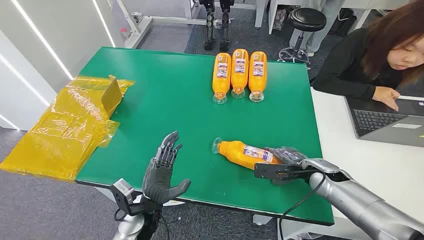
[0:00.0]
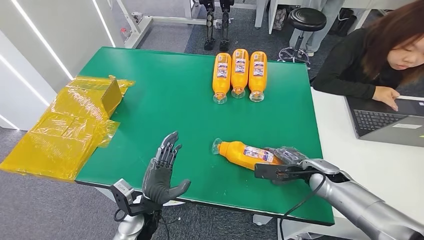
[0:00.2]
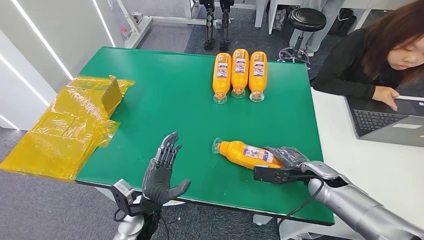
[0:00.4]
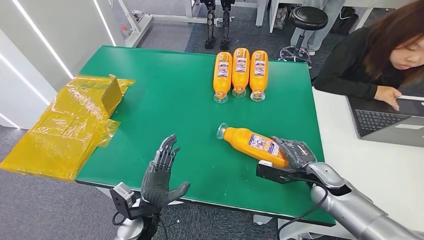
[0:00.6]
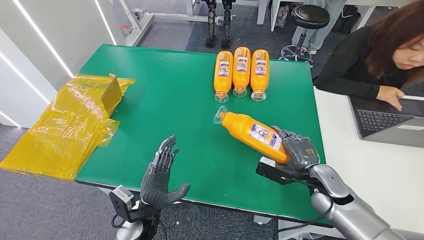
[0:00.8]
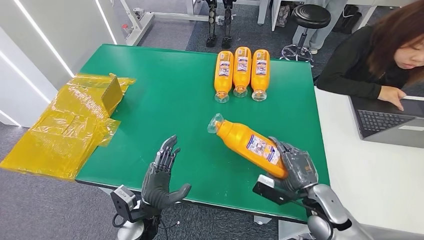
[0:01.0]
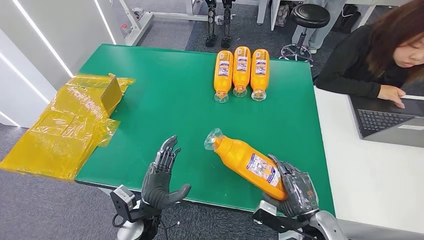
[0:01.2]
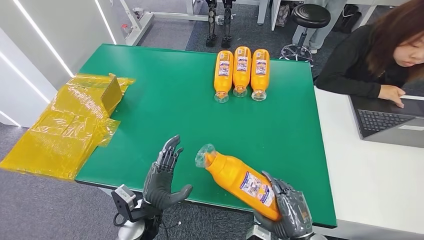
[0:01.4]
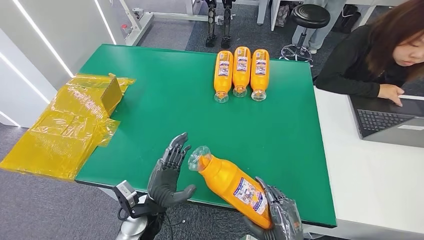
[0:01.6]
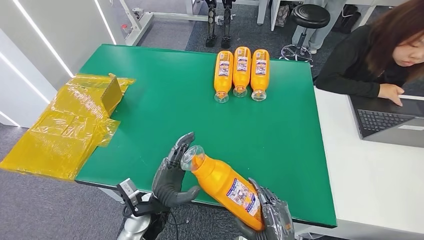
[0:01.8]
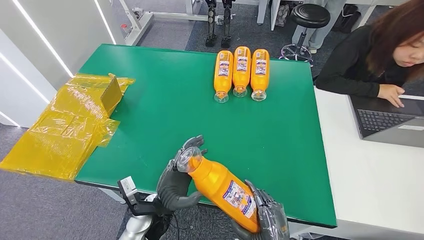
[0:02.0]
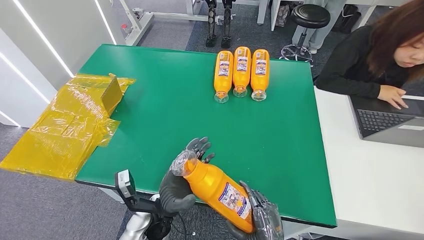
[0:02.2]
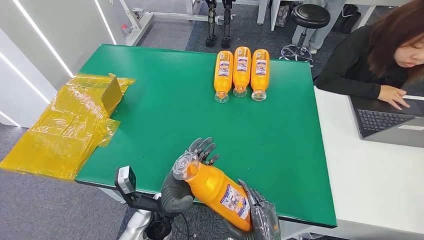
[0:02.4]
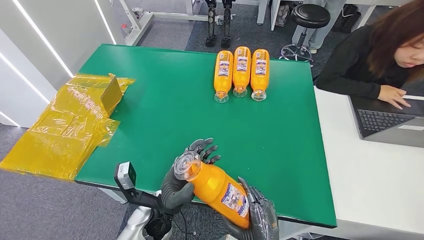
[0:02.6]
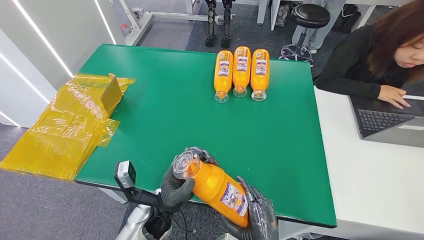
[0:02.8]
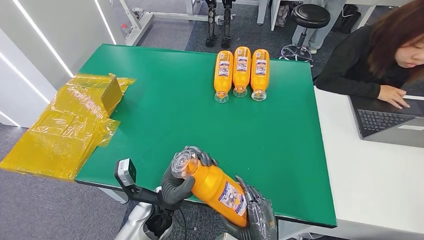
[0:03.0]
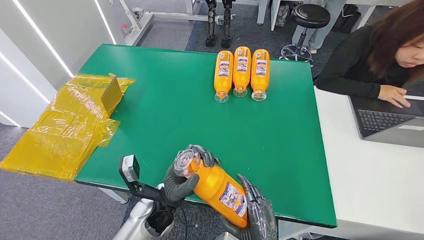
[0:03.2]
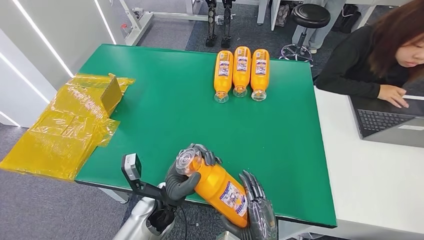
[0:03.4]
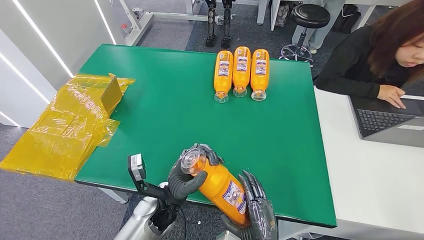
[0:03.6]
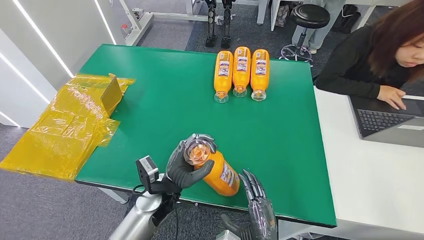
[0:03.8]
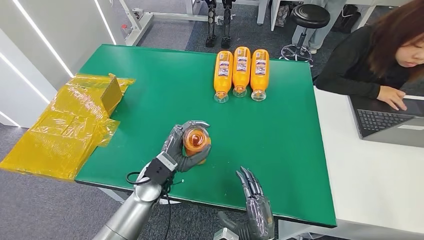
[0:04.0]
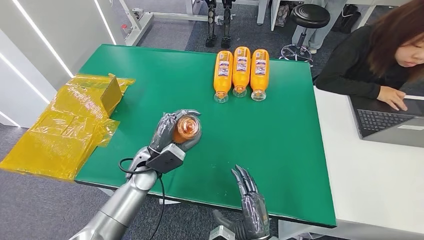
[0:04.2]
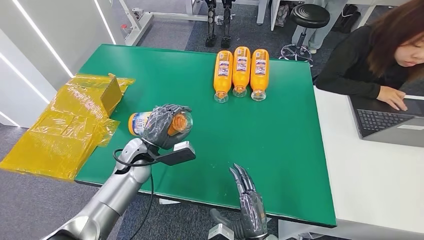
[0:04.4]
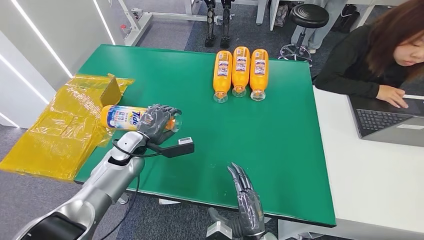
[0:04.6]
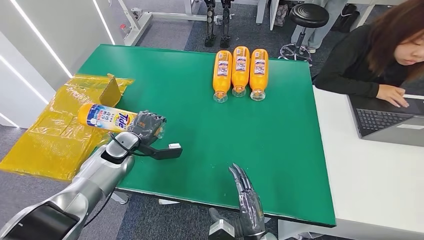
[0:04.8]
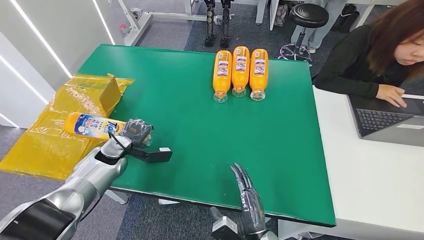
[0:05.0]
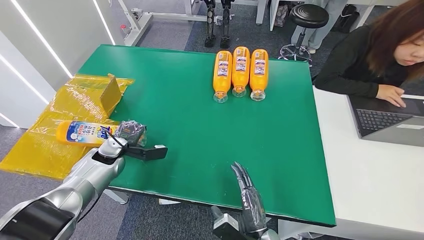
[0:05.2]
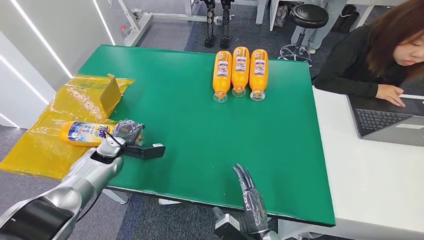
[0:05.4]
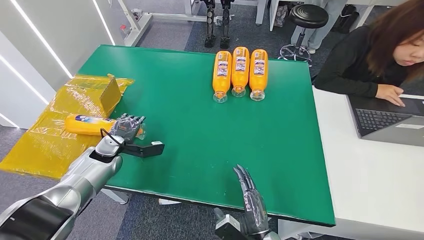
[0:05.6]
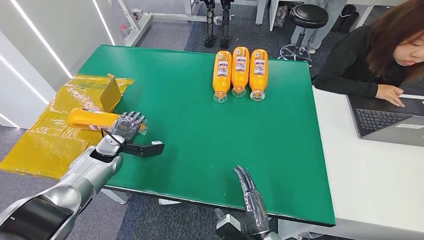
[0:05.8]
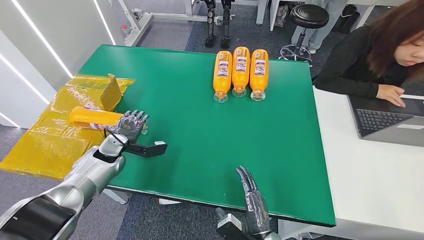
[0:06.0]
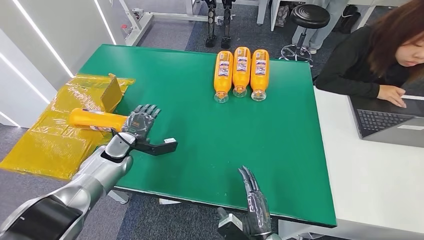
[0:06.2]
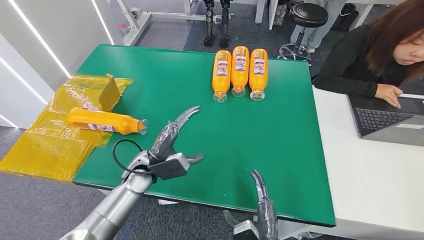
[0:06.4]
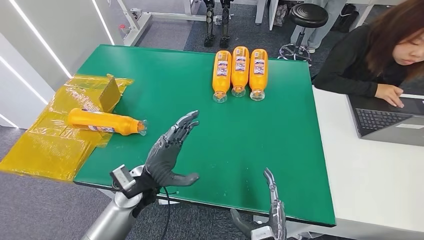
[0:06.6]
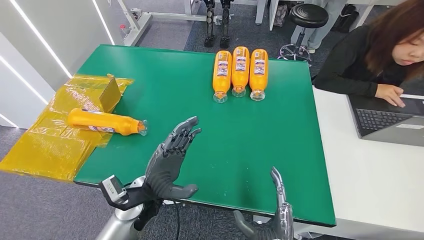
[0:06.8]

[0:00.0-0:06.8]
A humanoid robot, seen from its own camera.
Step, 0:00.0 to 0:02.2: Pick up the bottle from the table.
Step, 0:02.4 to 0:06.8: Turn the bottle to the front side.
0:01.4 to 0:02.8: The right hand heads to the left, covering about 10 cm. Meanwhile the left hand moves some 5 cm.
0:02.8 to 0:04.0: The left hand is displaced forward by about 10 cm.
0:04.0 to 0:05.4: The left hand travels to the left by roughly 20 cm.
0:05.4 to 0:06.8: The left hand heads to the right and backward, covering roughly 25 cm; the right hand changes place by some 5 cm.

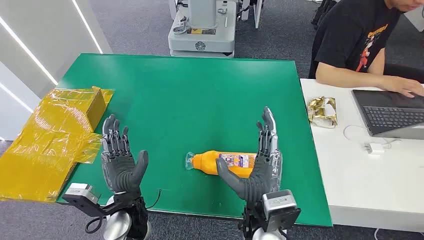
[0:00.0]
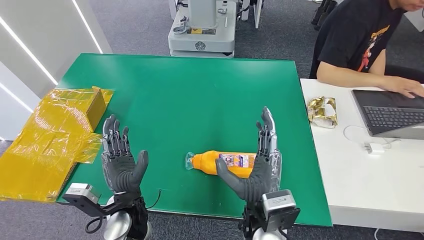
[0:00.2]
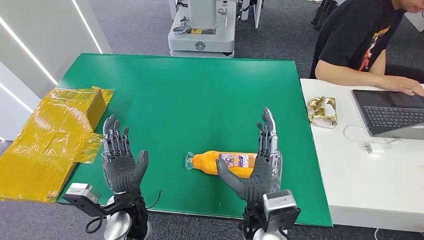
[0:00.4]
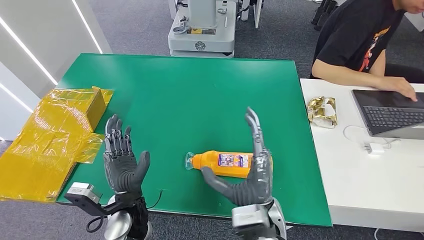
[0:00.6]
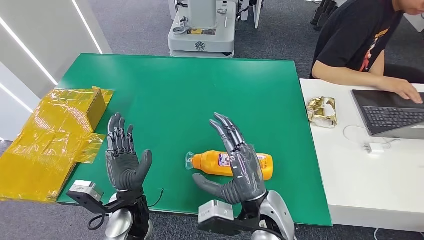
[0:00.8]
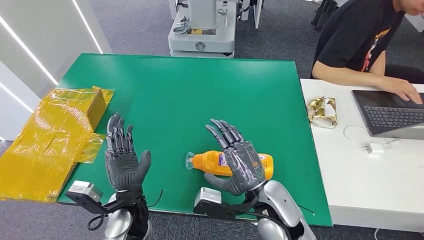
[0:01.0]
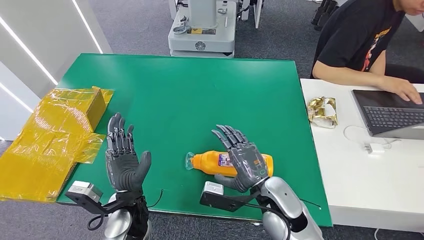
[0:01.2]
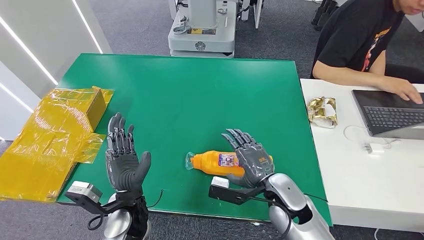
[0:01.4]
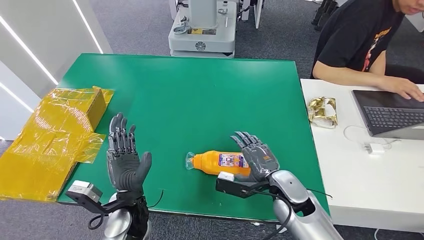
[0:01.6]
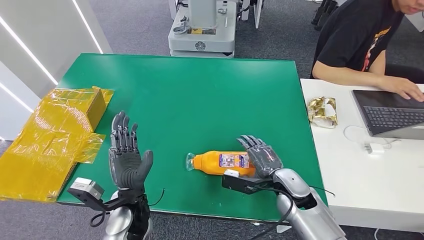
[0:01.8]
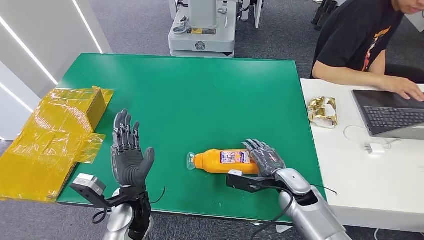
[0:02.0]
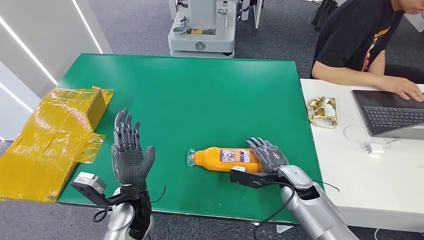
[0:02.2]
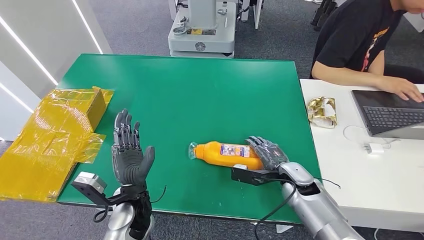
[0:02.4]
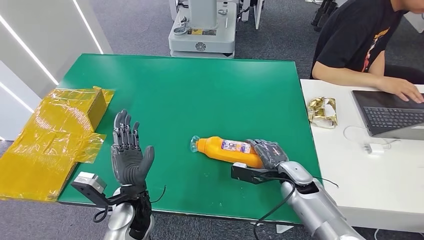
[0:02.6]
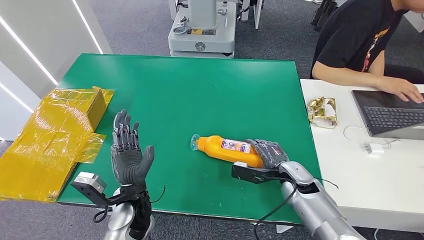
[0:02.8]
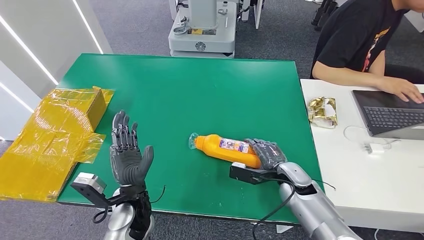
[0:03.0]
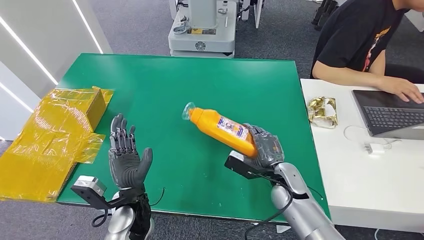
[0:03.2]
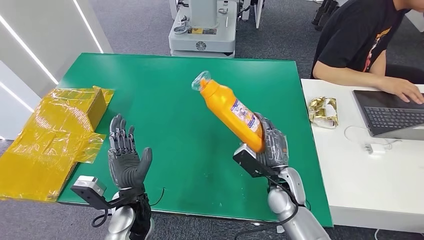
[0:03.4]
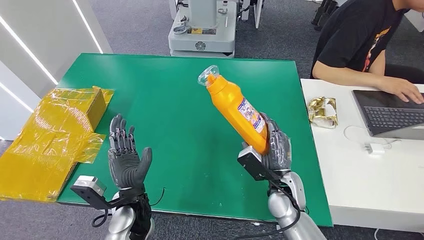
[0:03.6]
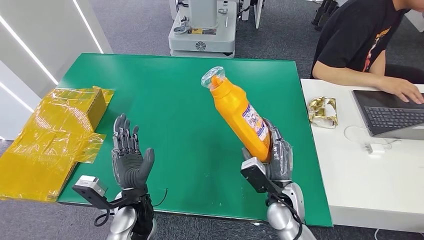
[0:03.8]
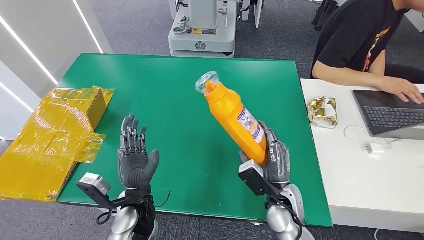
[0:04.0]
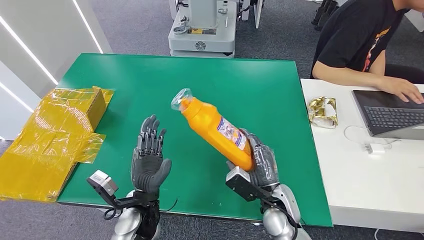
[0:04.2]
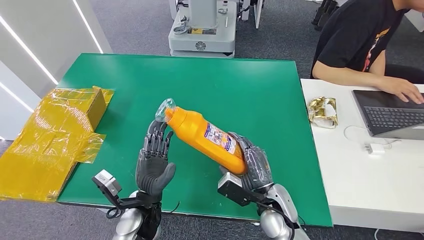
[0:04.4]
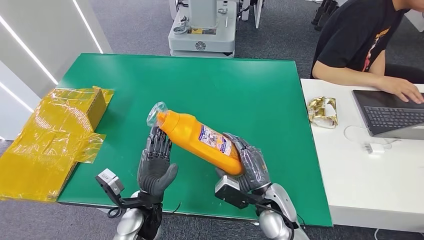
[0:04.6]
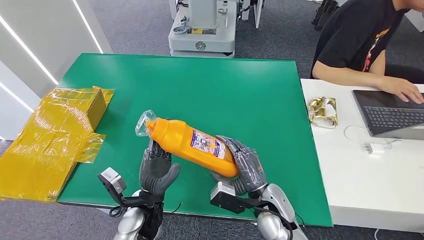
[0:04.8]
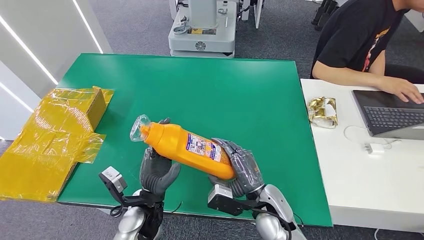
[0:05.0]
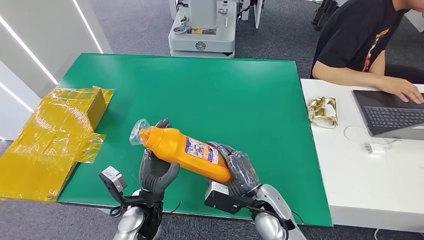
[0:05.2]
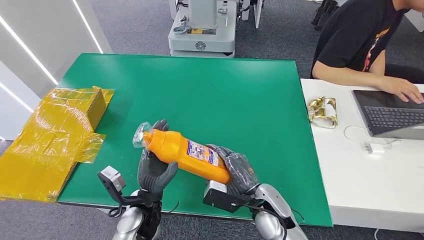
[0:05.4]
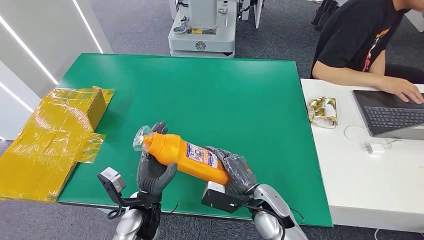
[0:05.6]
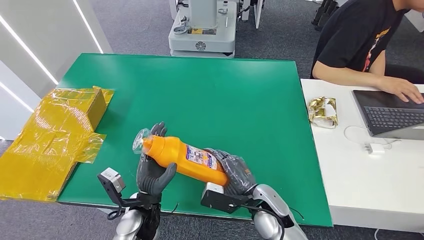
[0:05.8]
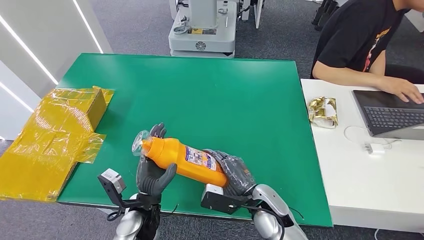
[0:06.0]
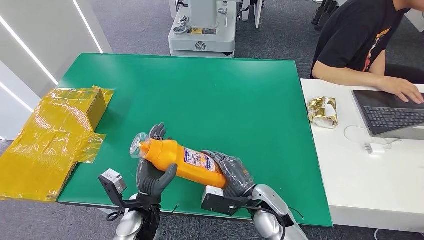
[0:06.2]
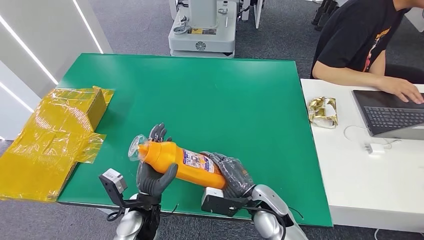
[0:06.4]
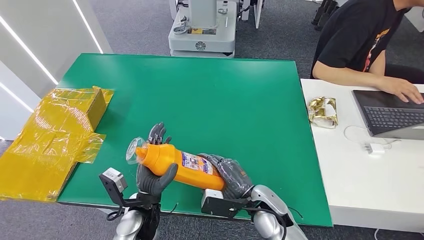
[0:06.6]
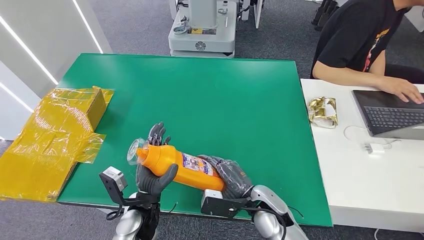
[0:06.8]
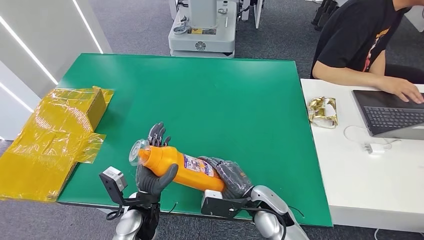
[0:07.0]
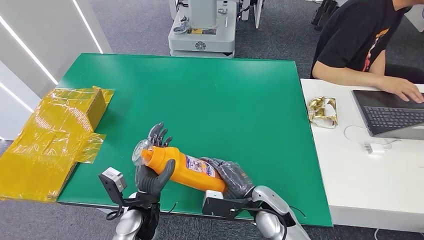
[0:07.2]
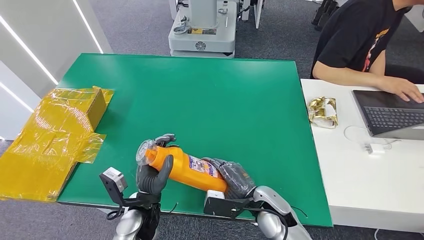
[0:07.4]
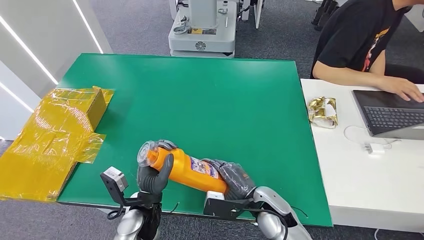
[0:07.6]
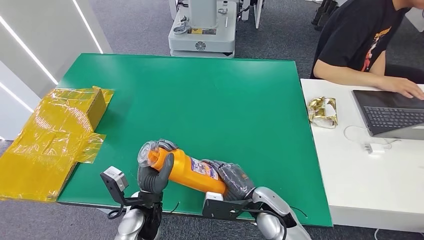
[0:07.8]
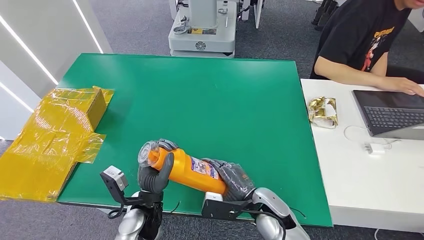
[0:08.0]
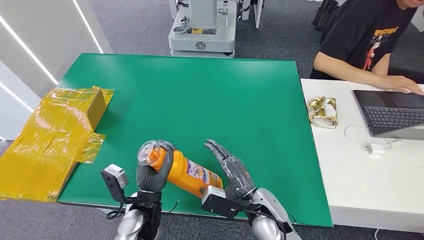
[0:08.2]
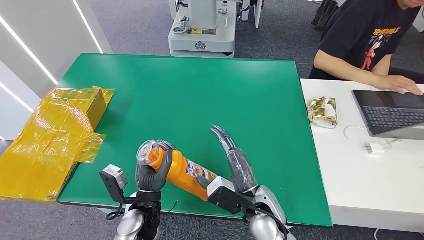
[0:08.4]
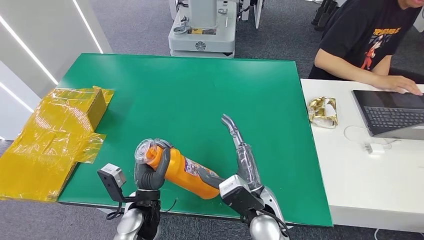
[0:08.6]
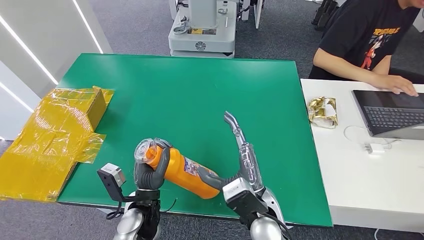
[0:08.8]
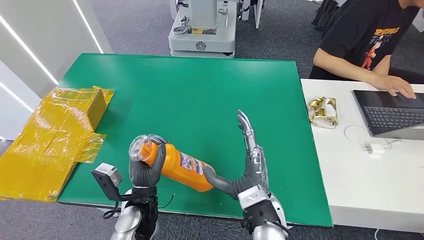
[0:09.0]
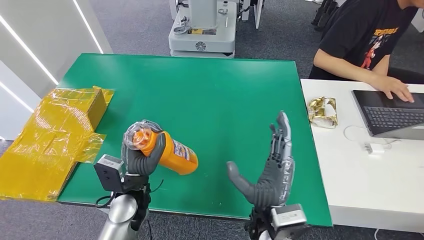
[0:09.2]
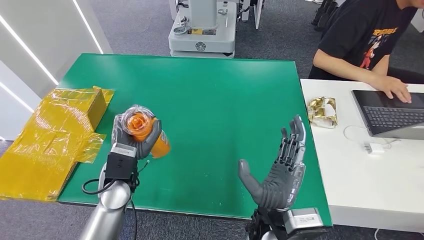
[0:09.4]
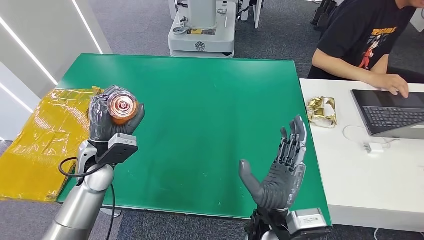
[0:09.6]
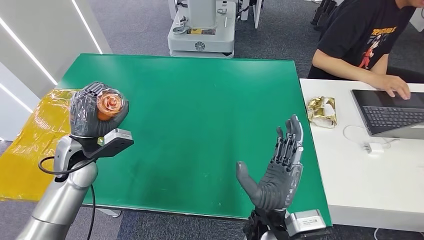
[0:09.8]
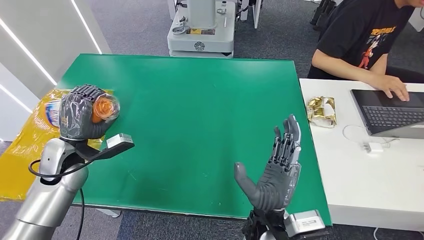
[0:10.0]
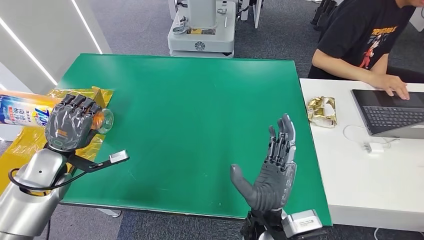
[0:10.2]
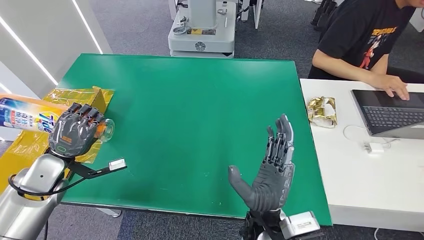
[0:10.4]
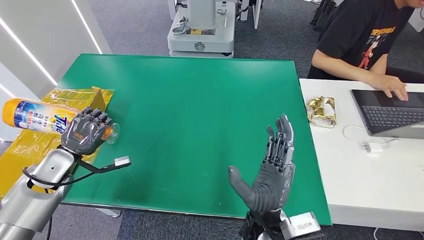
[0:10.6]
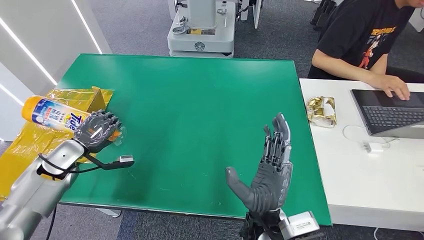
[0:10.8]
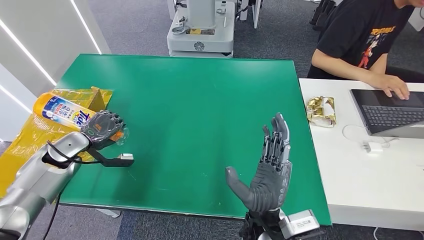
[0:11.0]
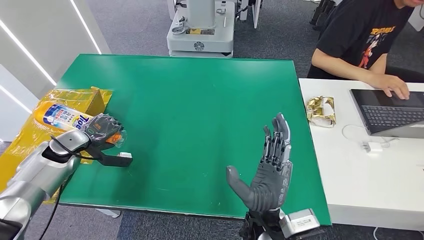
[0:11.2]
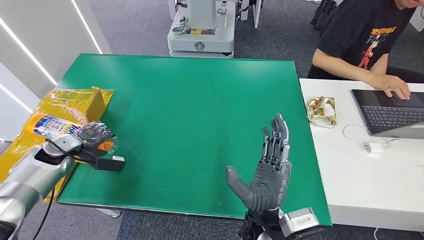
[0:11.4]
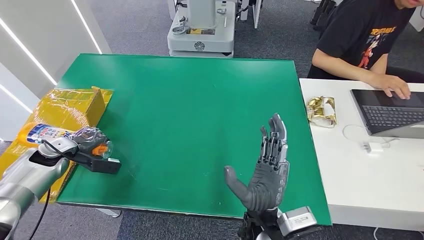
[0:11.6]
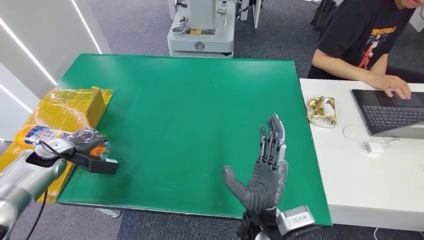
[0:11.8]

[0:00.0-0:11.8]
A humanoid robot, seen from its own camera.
Step, 0:00.0 to 0:03.4: Pick up the bottle from the table.
0:01.4 to 0:03.0: The right hand travels to the right, forward and downward by approximately 10 cm.
0:03.0 to 0:04.4: The right hand moves backward and to the left, about 10 cm.
0:06.0 to 0:07.4: The hands make only small movements.
0:07.4 to 0:08.8: The right hand is displaced upward by about 5 cm.
0:08.8 to 0:10.4: The left hand shifts some 25 cm to the left.
0:10.4 to 0:11.8: The left hand goes approximately 10 cm to the left, forward and downward.
